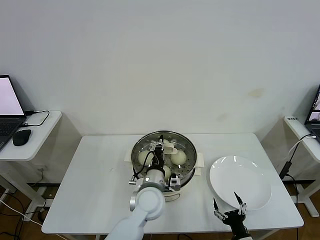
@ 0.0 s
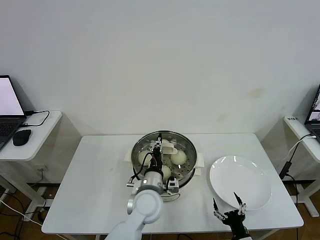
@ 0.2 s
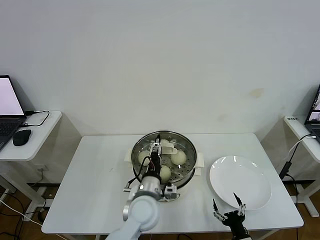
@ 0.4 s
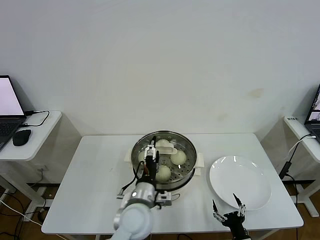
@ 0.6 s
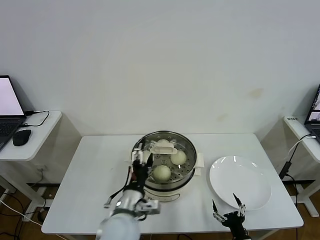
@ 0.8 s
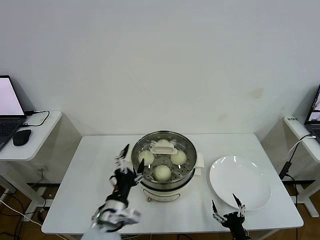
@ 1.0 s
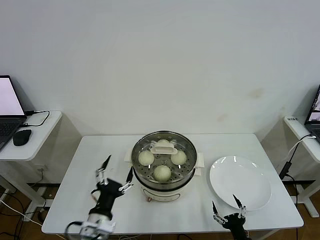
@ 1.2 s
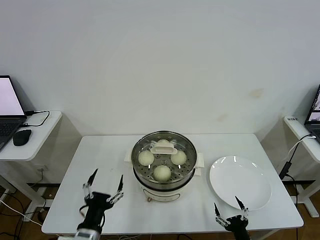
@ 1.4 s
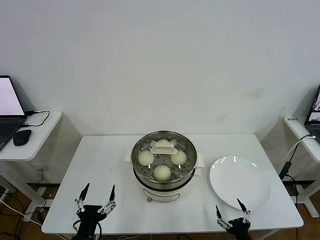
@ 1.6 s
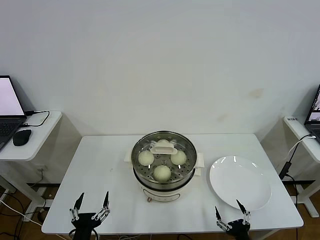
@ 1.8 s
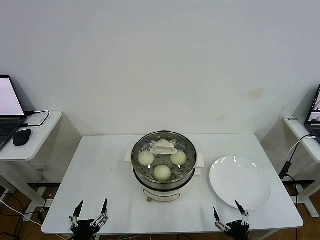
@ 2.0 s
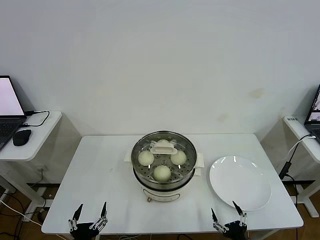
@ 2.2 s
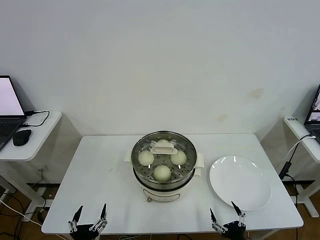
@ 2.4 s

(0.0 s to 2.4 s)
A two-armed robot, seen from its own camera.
0.0 s - 1.2 s: The left gripper travels to the left and backward by some 20 cm, and opens up.
1.2 s - 2.4 s: The left gripper moves backward, downward and to the left, some 15 cm.
